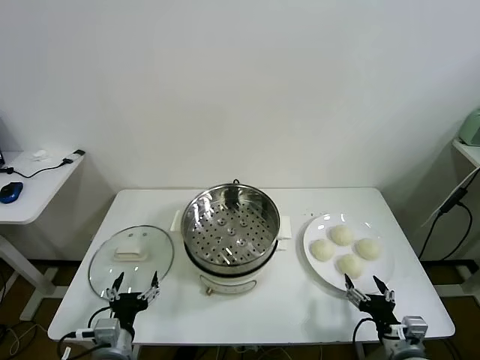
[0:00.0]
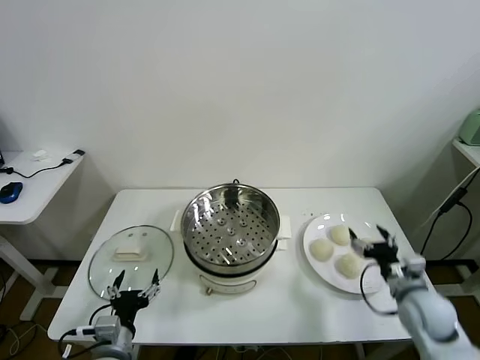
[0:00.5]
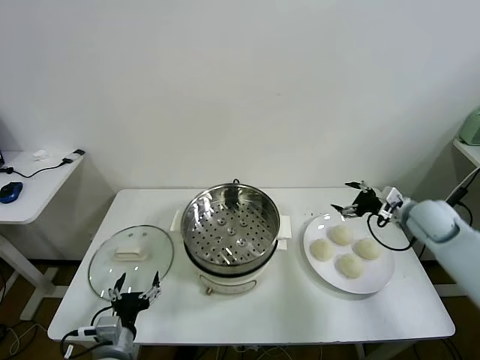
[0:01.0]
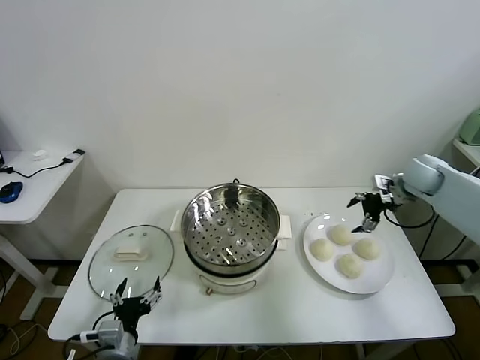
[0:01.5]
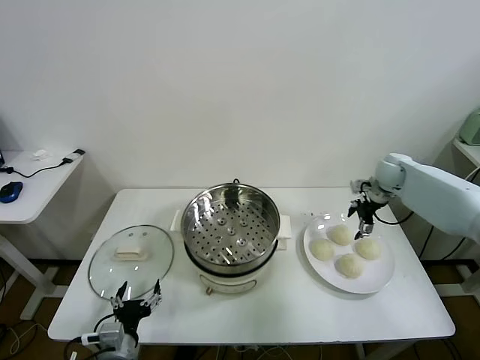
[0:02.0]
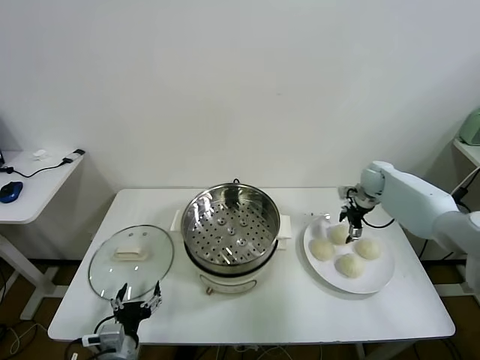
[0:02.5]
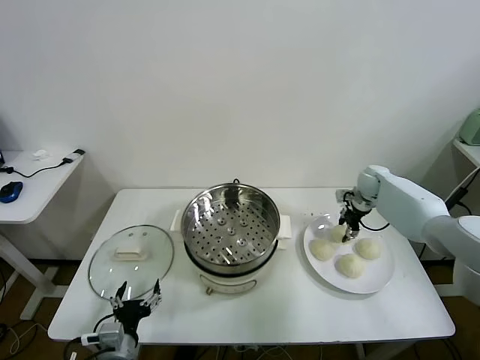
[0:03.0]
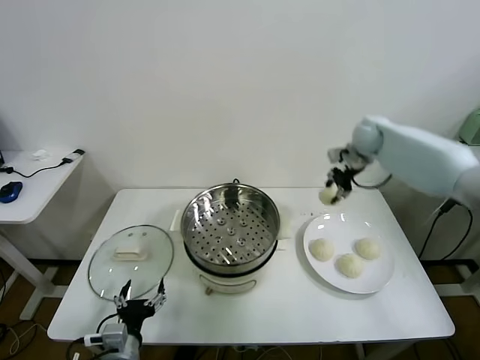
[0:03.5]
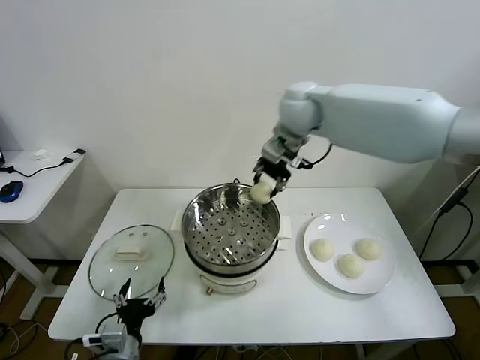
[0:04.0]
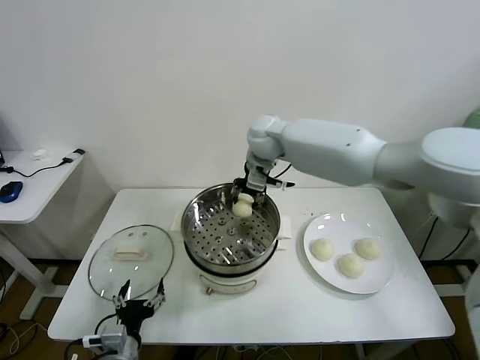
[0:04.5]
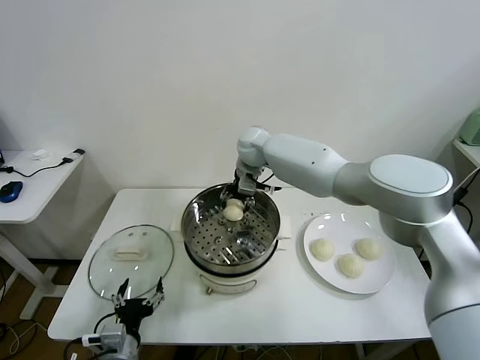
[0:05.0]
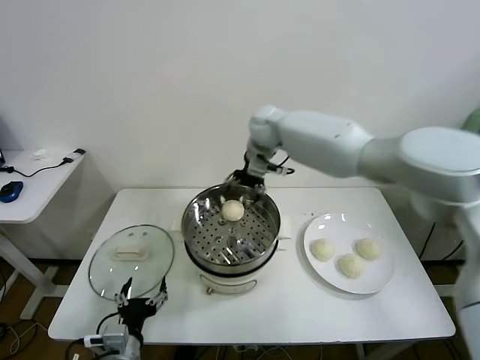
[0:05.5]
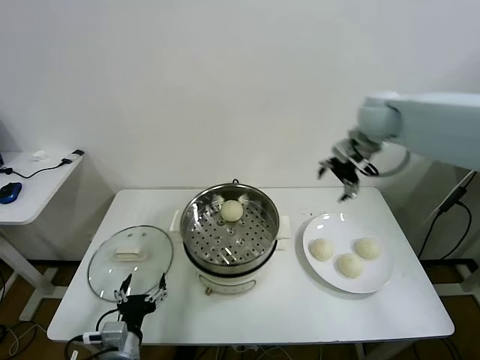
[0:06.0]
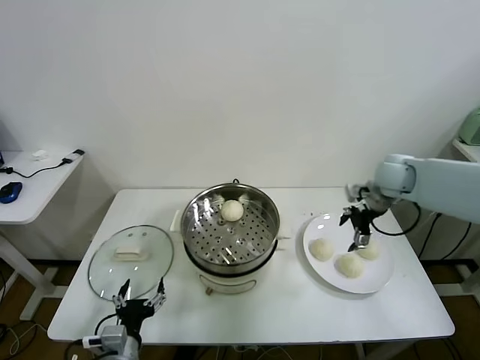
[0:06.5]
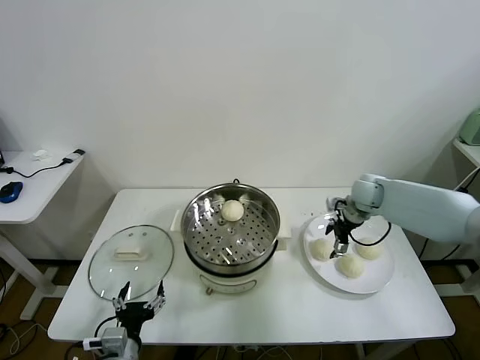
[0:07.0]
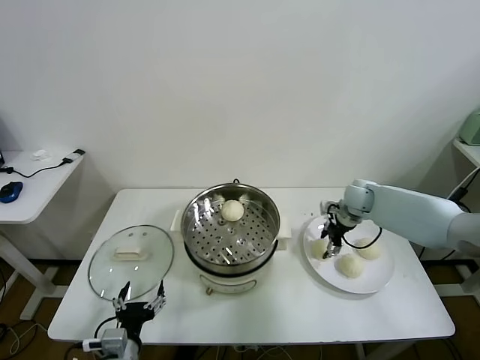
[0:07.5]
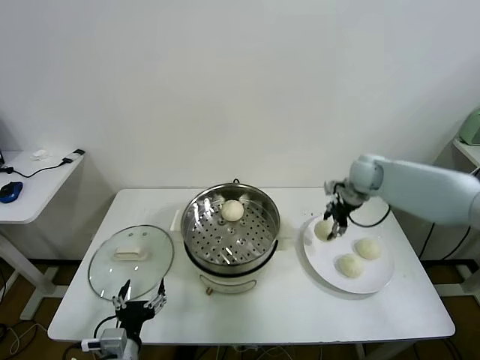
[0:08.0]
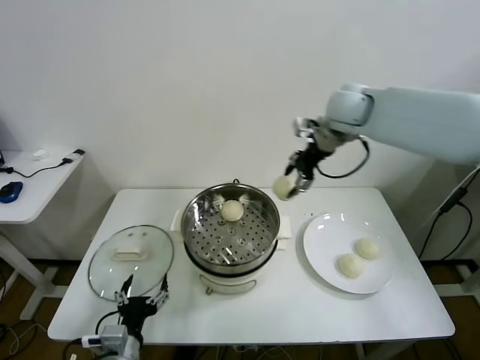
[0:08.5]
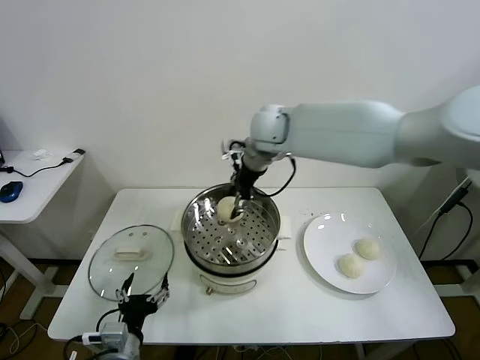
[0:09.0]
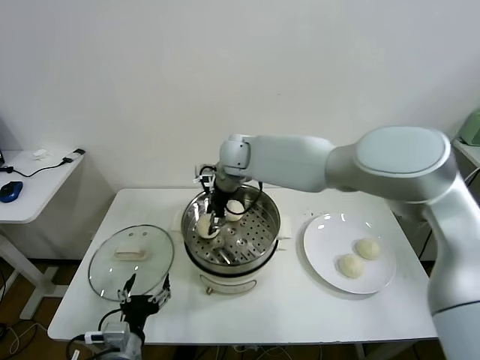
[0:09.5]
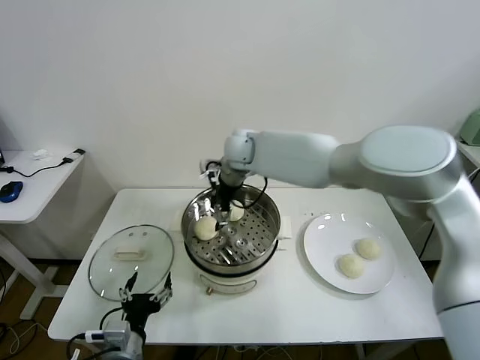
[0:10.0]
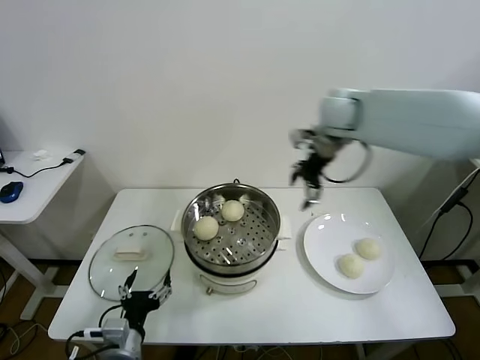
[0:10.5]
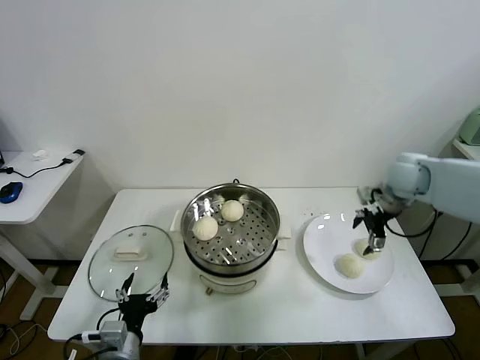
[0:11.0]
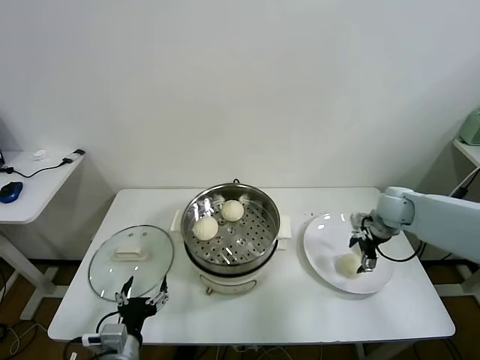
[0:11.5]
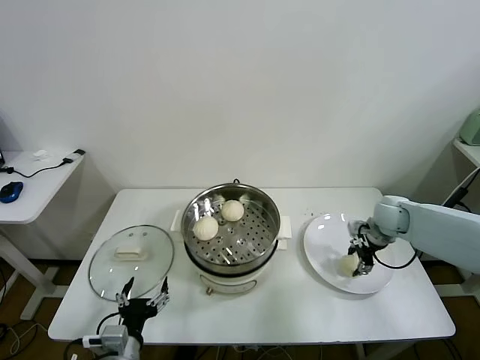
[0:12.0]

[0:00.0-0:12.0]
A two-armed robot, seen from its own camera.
Task of the whole recording: take steamed baozi put them in steamer.
Step, 0:00.0 to 0:02.5: Grasp the baozi in the plate with right gripper.
Step, 0:03.0 to 0:05.0: Place the baozi on the steamer with right gripper.
Step, 0:05.5 to 0:07.5: Grasp the baozi in the plate with right gripper.
Step, 0:08.0 to 0:09.5: Place the baozi on the steamer with right gripper.
Step, 0:10.5 to 0:11.5: Grasp the baozi in the plate with right gripper.
0:02.0 to 0:04.0: The right gripper goes some 35 cm to the left and upward, and closes its fingers.
0:04.0 to 0:06.0: The right gripper moves to the right, approximately 20 cm, and opens up.
0:06.0 to 0:08.0: The right gripper is displaced downward by some 10 cm, and closes its fingers.
0:08.0 to 0:10.0: The right gripper goes about 30 cm to the left, and opens.
0:10.0 to 0:12.0: The right gripper shifts approximately 40 cm to the right and downward, and closes up.

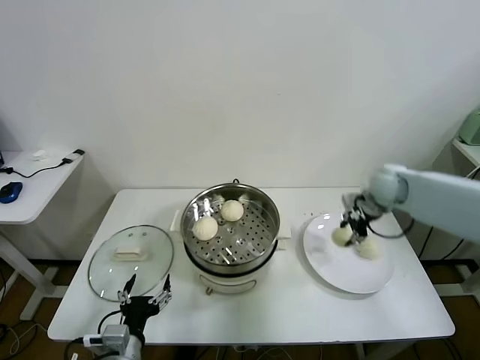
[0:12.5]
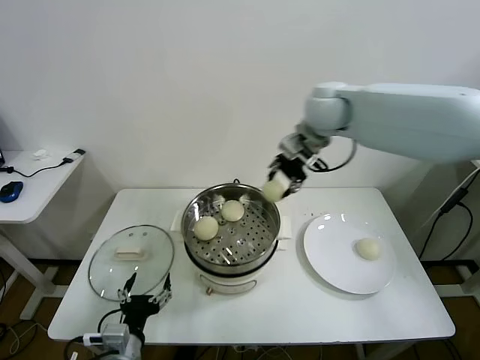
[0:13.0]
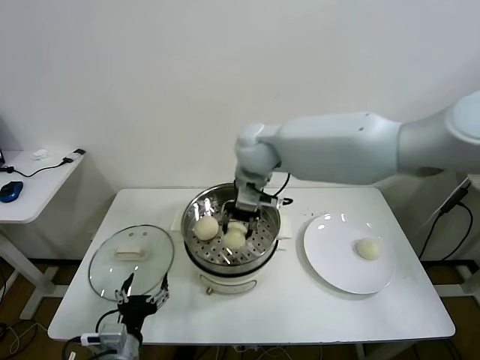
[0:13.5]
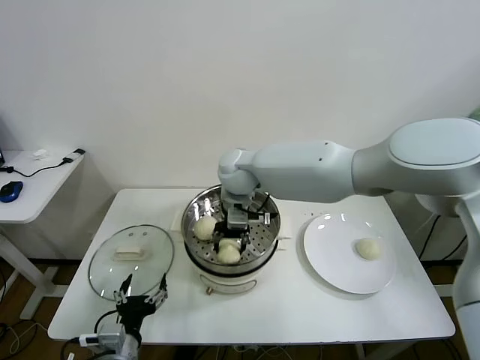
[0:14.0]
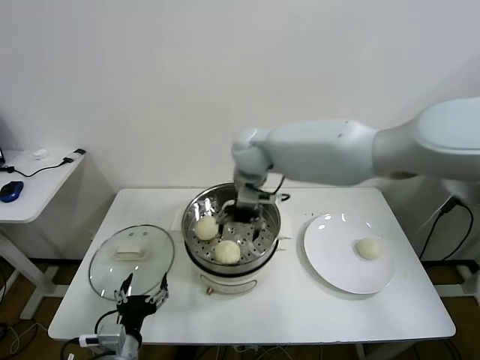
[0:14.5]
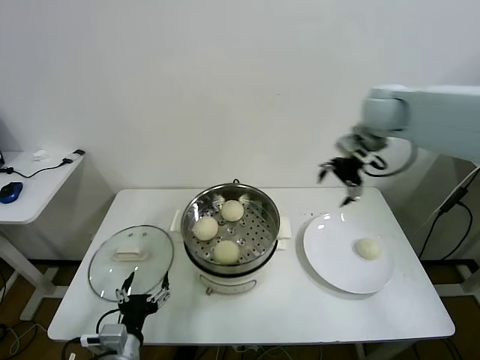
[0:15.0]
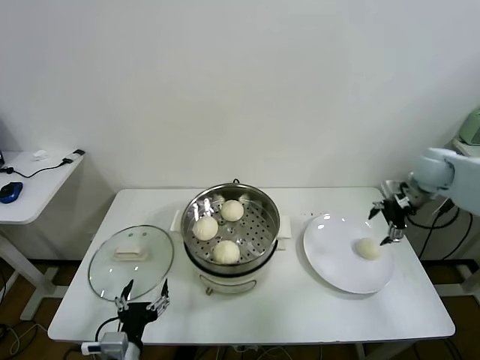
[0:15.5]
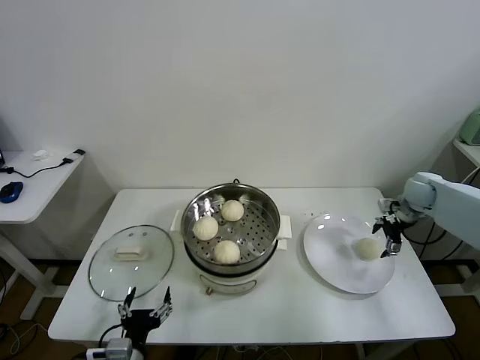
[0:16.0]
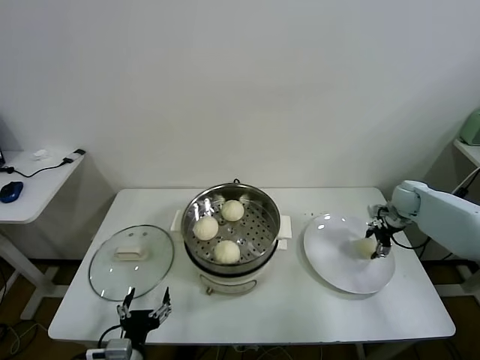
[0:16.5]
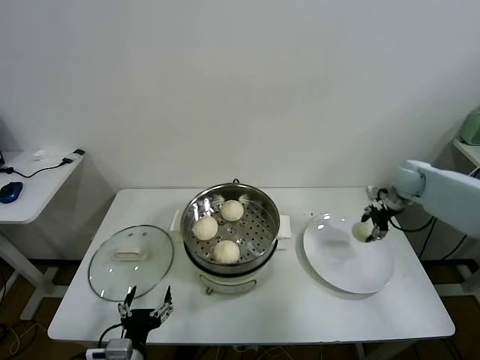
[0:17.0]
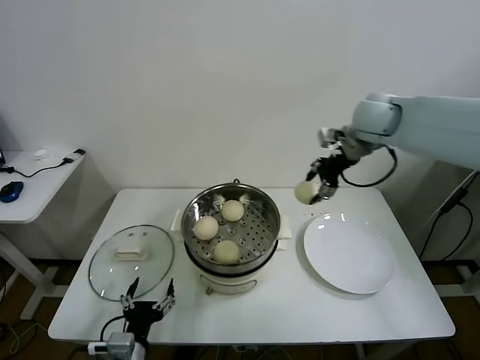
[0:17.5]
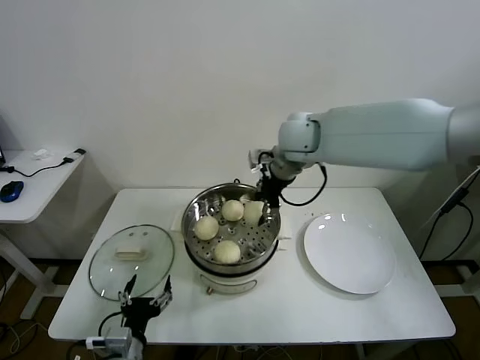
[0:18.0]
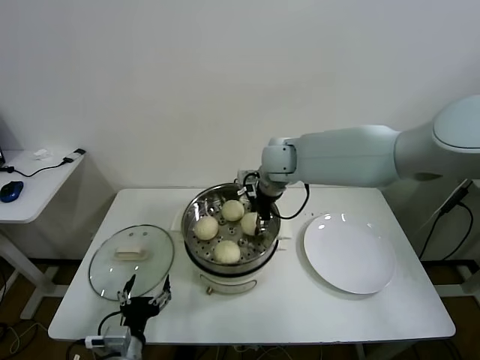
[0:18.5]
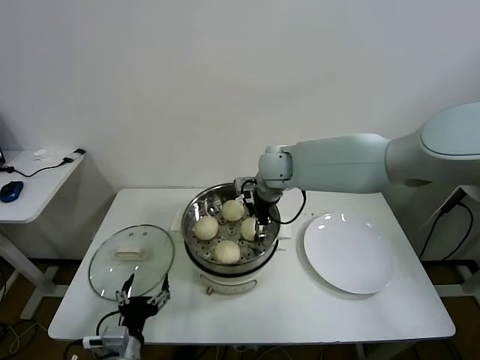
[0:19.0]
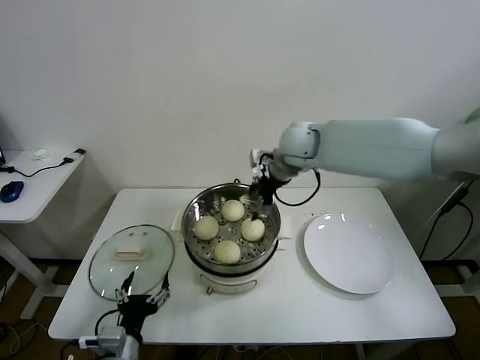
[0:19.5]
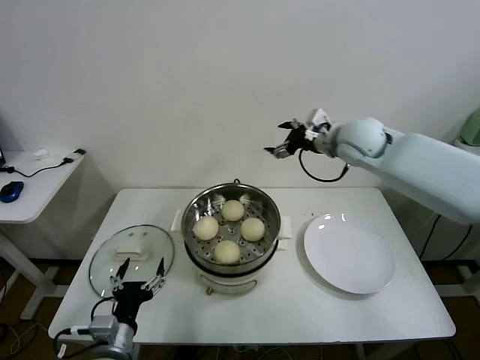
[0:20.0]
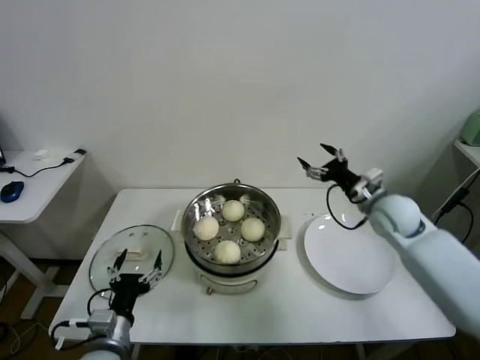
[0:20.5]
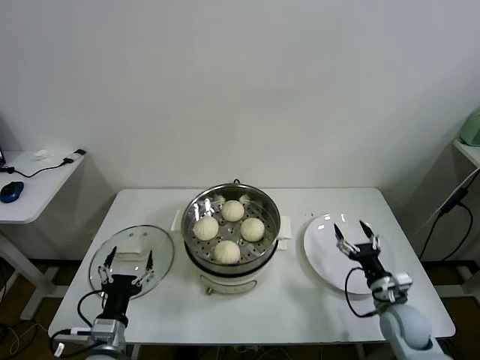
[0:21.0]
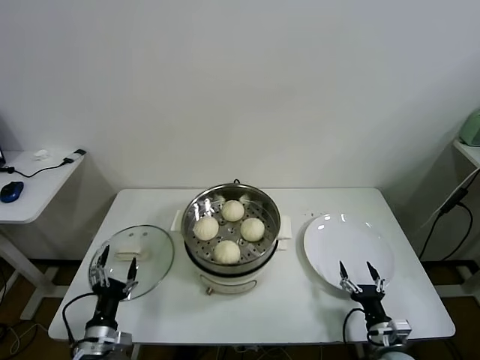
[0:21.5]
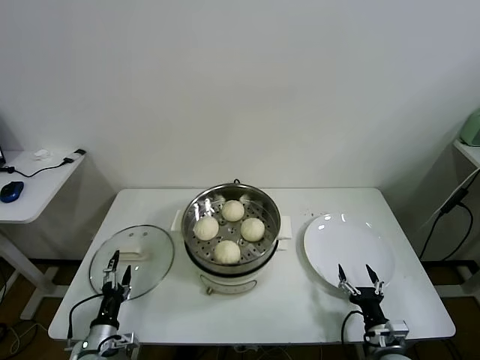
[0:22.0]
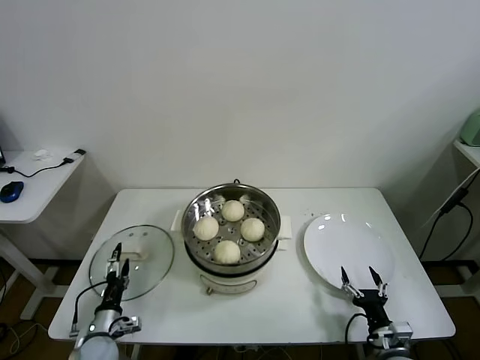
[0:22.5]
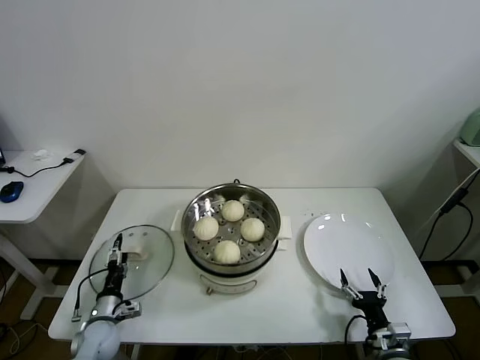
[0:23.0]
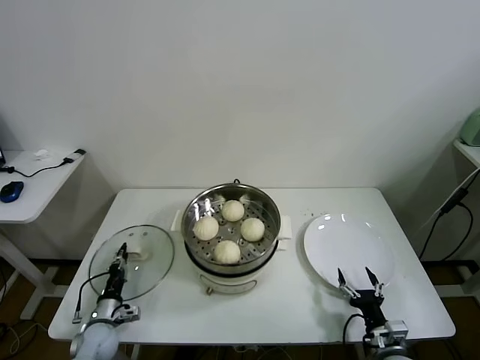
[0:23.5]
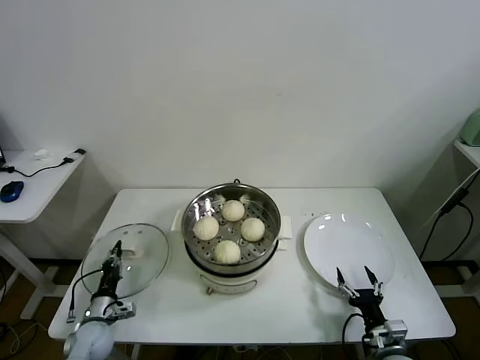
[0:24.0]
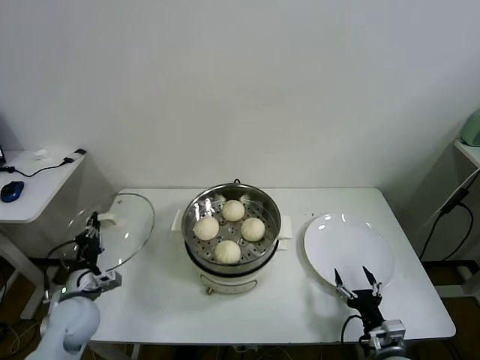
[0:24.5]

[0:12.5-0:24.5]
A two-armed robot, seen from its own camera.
Task of the whole recording: take steamed baozi put them in steamer.
Step, 0:12.5 to 0:14.0: Place the baozi on the steamer with right gripper.
Step, 0:14.5 to 0:16.5: Grasp the baozi in the plate with right gripper.
Step, 0:17.0 to 0:19.0: Place the baozi on the steamer with right gripper.
Step, 0:19.5 to 0:23.5: Grasp the pot lid with left gripper.
0:12.5 to 0:14.5: The right gripper heads to the left, covering some 30 cm, and opens up.
0:14.5 to 0:16.5: The right gripper heads to the right and downward, covering about 50 cm, and closes its fingers.
0:16.5 to 0:18.5: The right gripper is displaced to the left and upward by some 40 cm.
0:18.5 to 0:20.5: The right gripper moves to the right, some 25 cm, and opens up.
0:20.5 to 0:22.5: The left gripper goes approximately 20 cm downward and to the left. Meanwhile the right gripper heads backward and downward, covering roughly 35 cm.
0:22.5 to 0:24.5: The left gripper shifts roughly 10 cm upward, and closes.

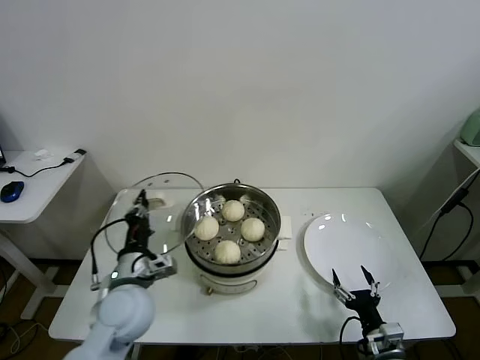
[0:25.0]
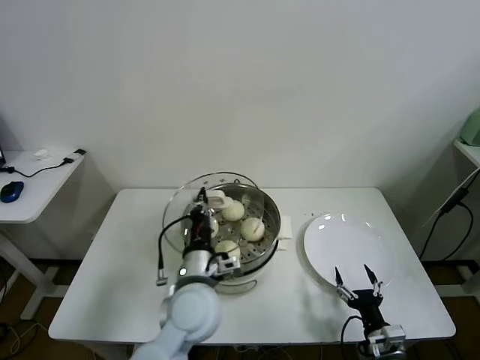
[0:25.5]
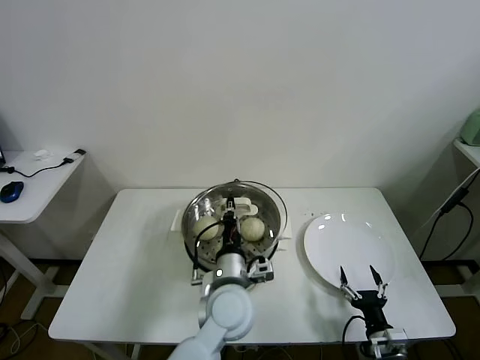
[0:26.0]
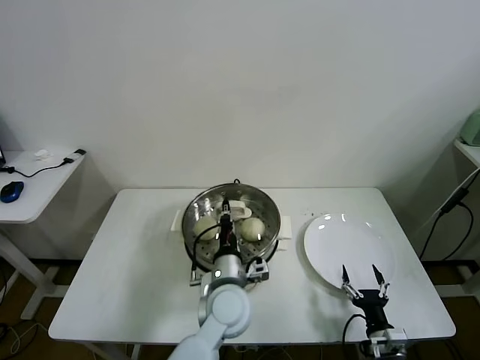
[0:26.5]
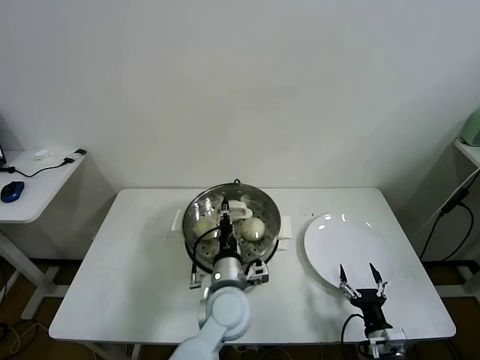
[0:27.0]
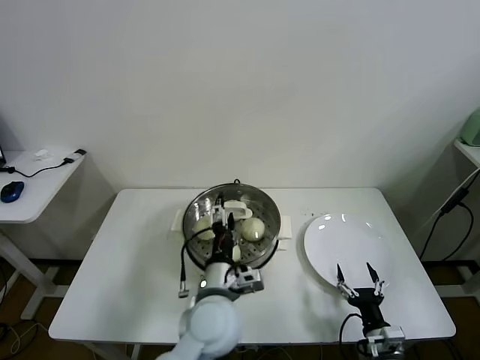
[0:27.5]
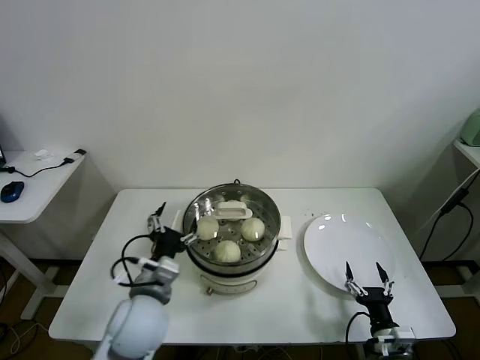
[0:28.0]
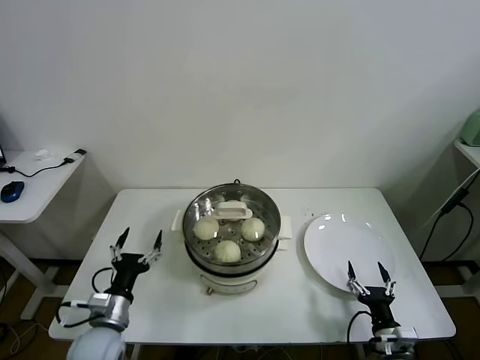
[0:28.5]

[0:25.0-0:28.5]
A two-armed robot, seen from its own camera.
Task of the whole recording: take steamed baozi put them in steamer.
Step, 0:25.0 to 0:27.0: Place the pot lid on the steamer with left gripper.
0:25.0 to 0:27.0: The left gripper heads to the right, covering some 20 cm.
0:27.0 to 0:28.5: The left gripper goes about 25 cm to the left, and opens up.
